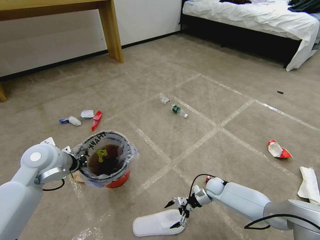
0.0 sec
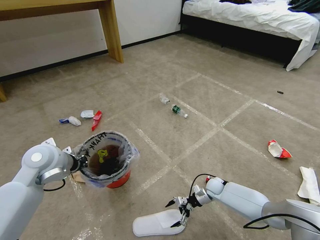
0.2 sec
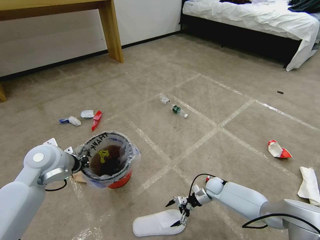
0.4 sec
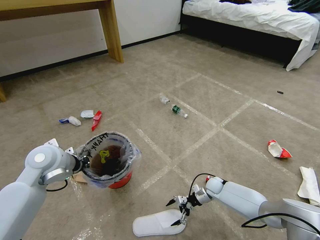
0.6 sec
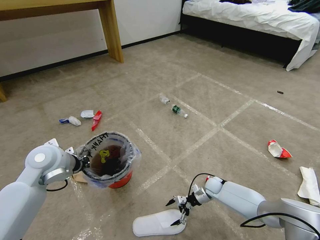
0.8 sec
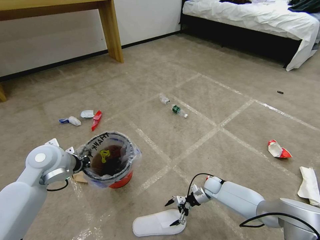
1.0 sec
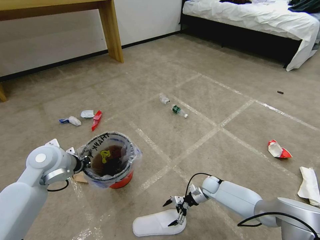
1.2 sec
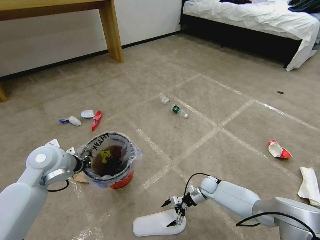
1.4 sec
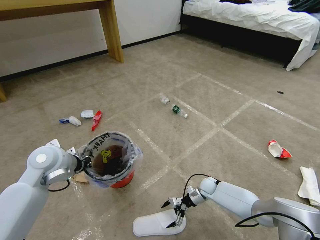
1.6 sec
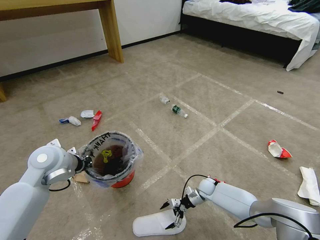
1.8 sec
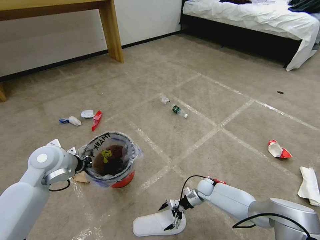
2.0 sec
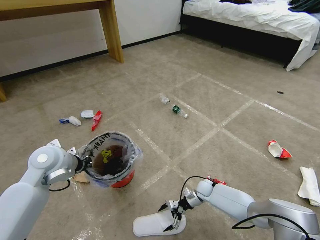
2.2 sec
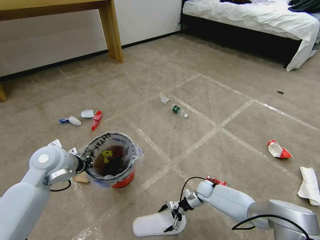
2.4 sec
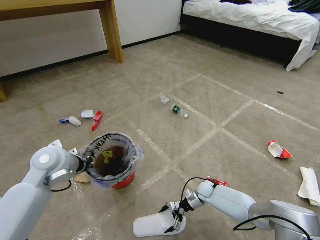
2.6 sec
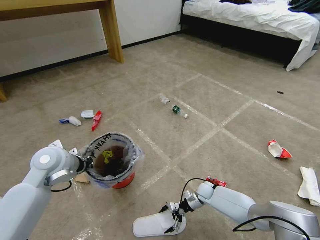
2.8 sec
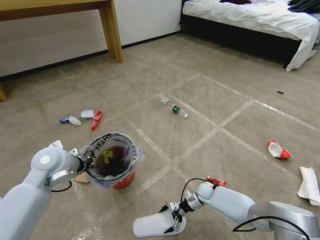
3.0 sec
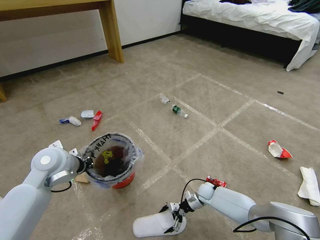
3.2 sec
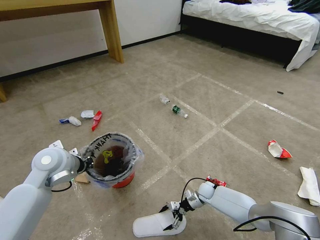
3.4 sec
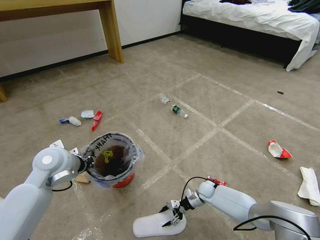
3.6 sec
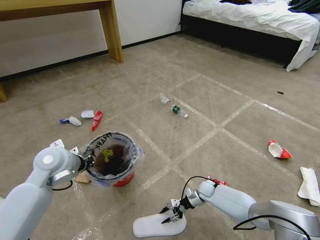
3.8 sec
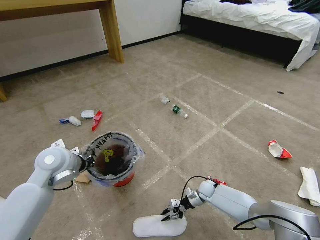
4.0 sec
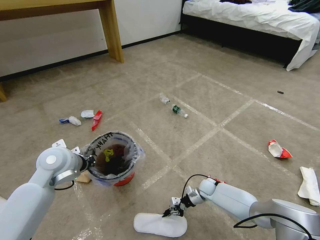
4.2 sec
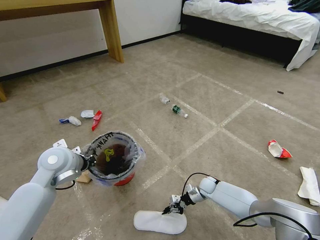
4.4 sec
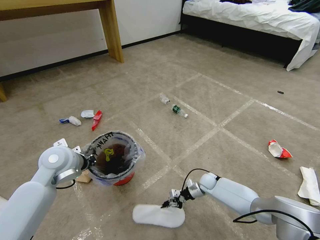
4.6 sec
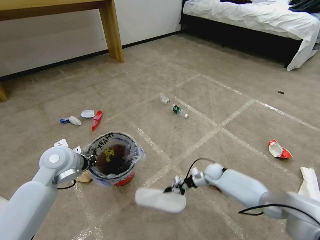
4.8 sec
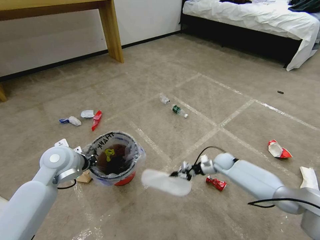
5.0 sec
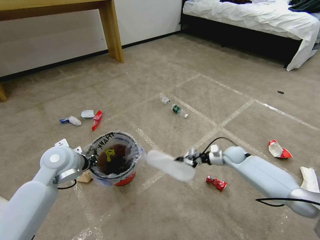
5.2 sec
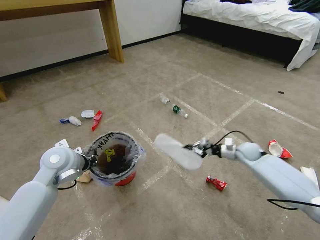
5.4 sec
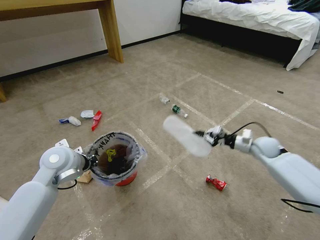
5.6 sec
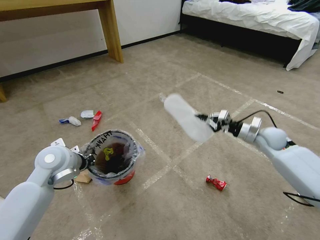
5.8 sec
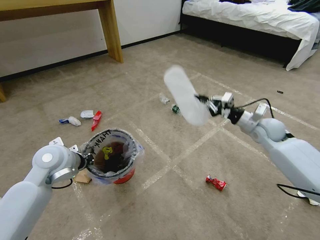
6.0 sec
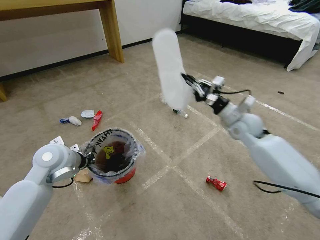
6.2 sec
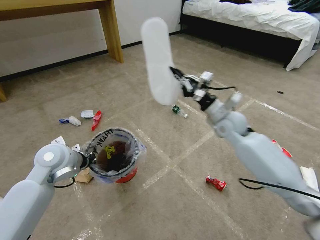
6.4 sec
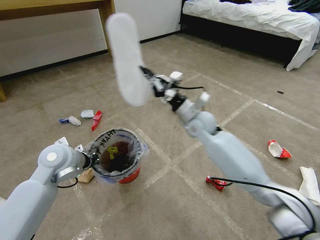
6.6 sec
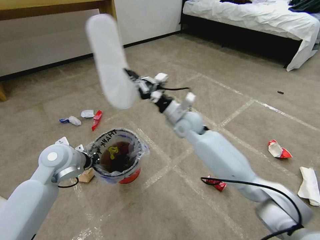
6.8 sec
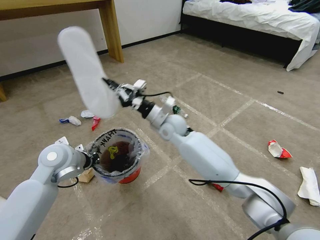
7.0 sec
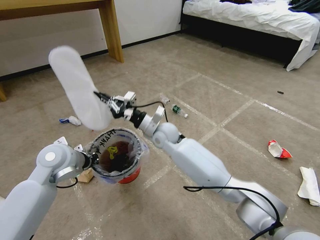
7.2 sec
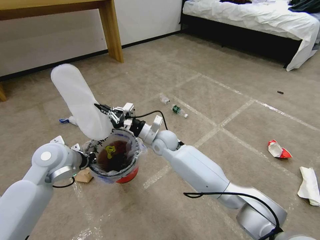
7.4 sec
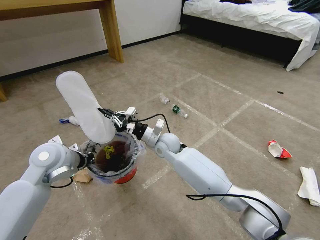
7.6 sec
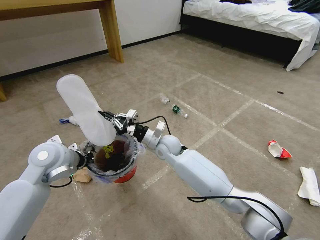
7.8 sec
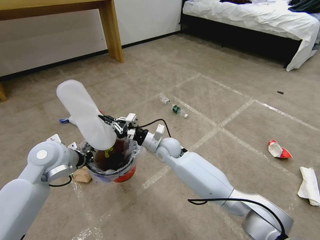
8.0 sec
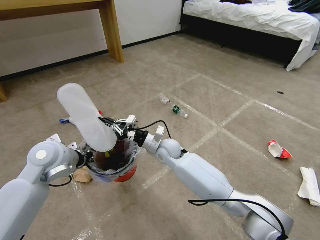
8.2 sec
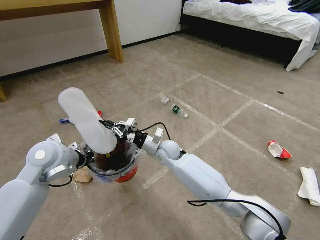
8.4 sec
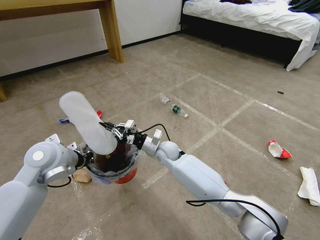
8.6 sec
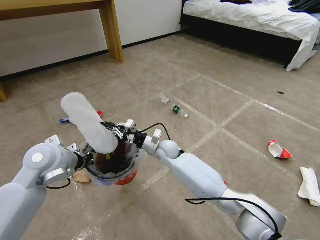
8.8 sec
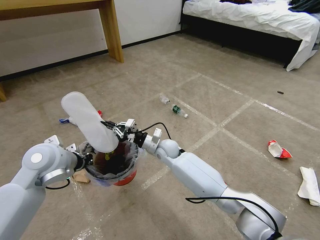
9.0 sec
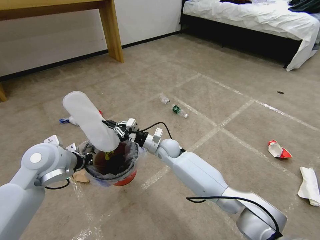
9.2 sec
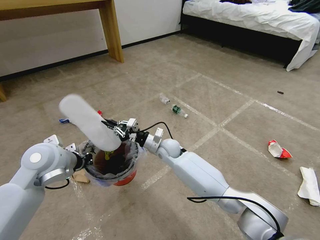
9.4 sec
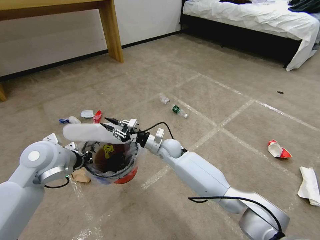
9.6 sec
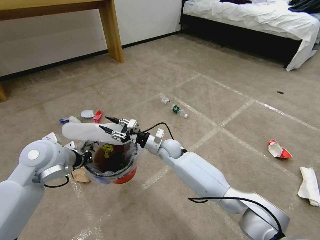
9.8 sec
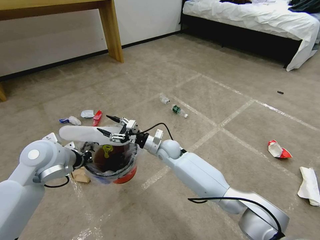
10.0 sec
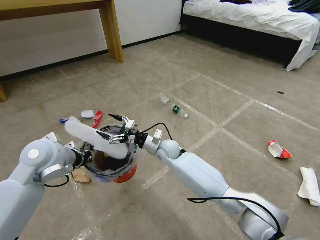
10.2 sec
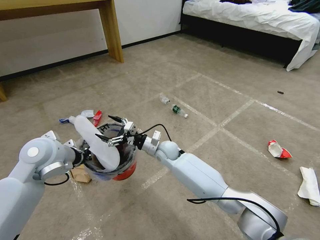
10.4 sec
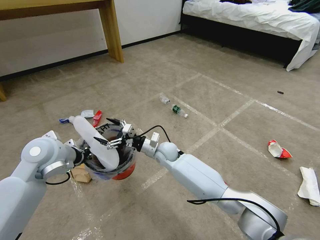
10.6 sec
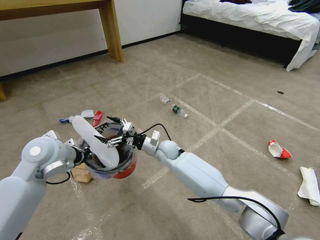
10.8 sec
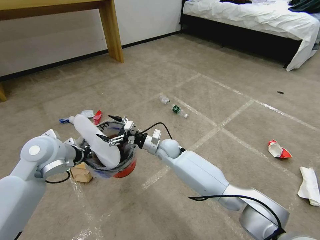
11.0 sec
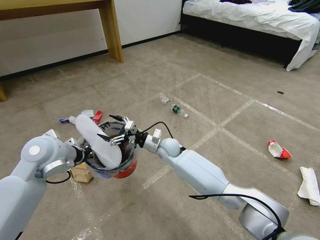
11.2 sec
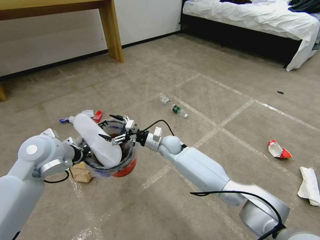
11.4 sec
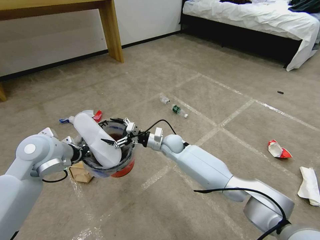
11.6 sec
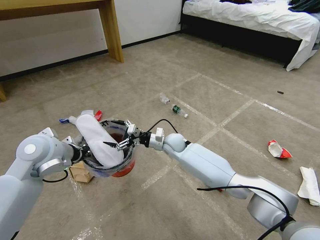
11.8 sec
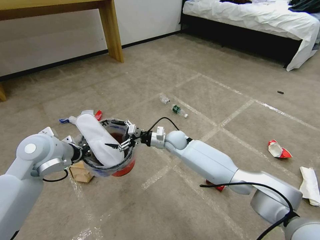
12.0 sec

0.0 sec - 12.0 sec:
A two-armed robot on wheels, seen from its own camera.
Task of the whole recording: Pick up the trash bin and place the garbage on the floor into it.
0.0 sec - 3.0 sec: The grippers stay close to where they were, moving slightly.
3.0 sec - 4.4 sec: The right gripper closes its fingers.
4.4 sec - 6.0 sec: The right gripper shifts some 35 cm upward.
6.0 sec - 7.6 sec: The right gripper goes approximately 35 cm to the left.
7.6 sec - 9.0 sec: The grippers move only a little.
9.0 sec - 10.4 sec: The right gripper opens up.
10.4 sec - 12.0 sec: The right gripper moves roughly 5 cm.

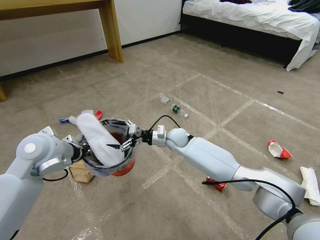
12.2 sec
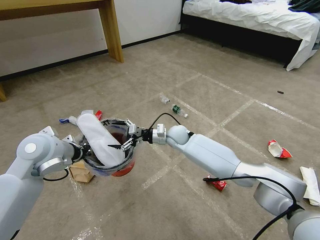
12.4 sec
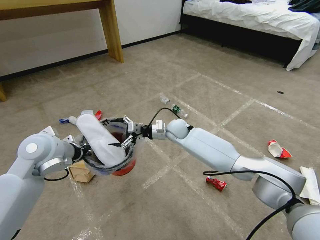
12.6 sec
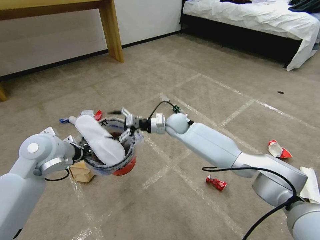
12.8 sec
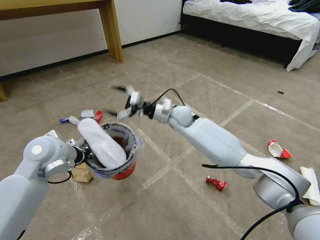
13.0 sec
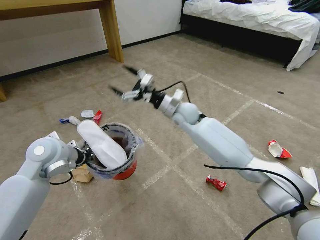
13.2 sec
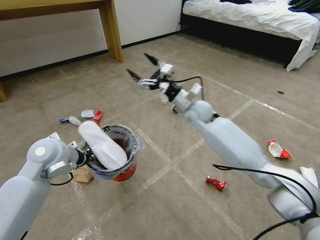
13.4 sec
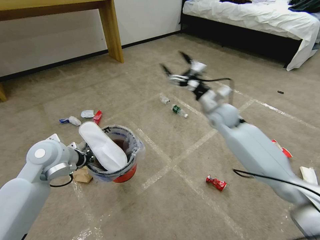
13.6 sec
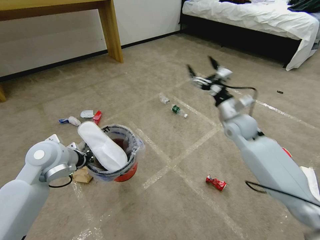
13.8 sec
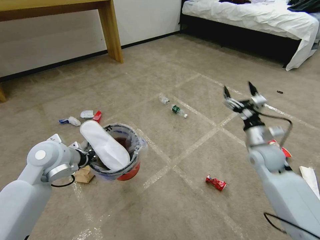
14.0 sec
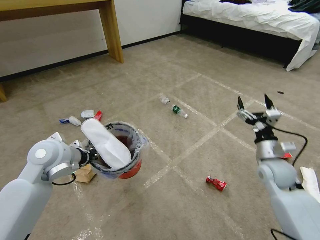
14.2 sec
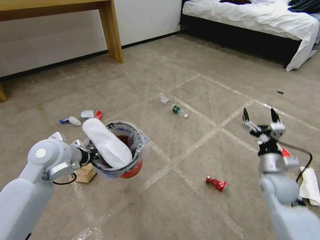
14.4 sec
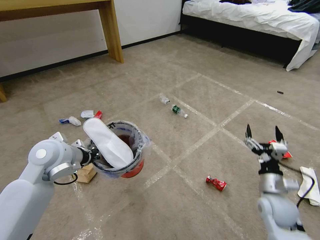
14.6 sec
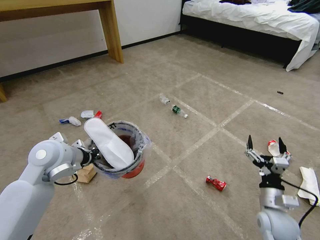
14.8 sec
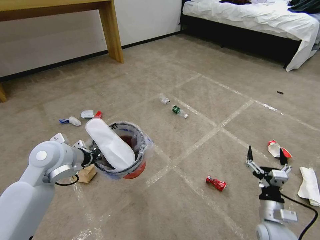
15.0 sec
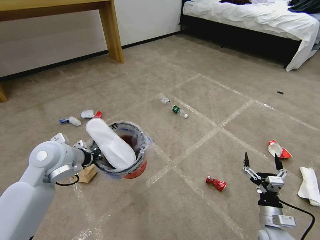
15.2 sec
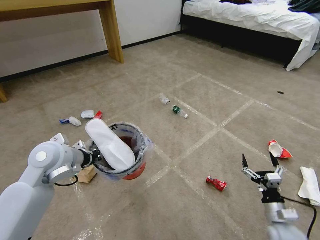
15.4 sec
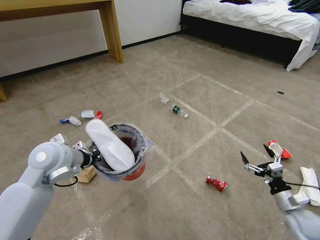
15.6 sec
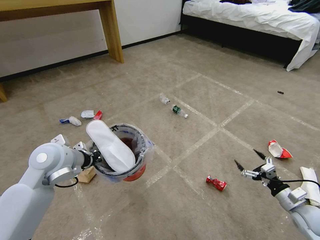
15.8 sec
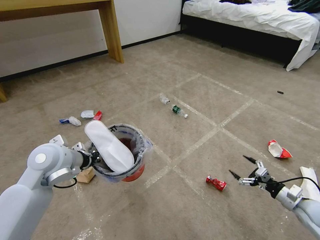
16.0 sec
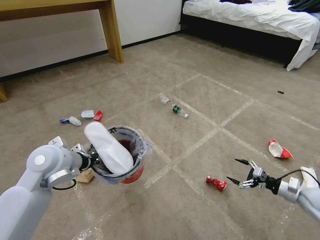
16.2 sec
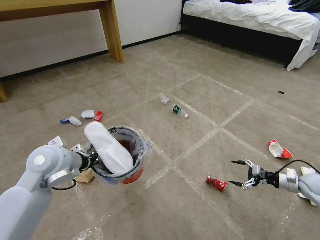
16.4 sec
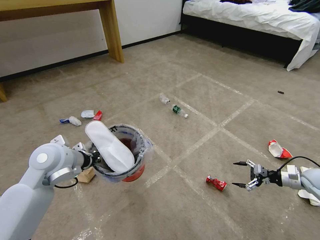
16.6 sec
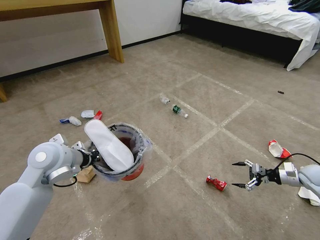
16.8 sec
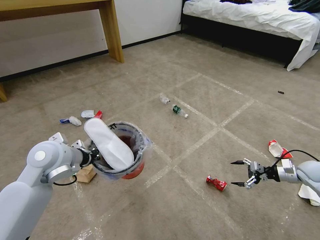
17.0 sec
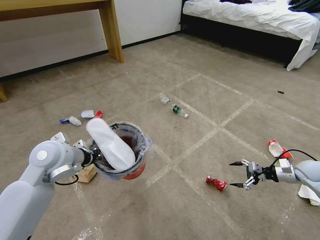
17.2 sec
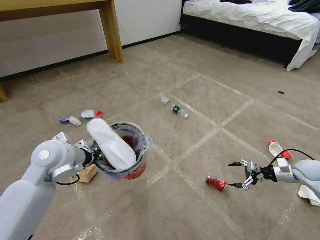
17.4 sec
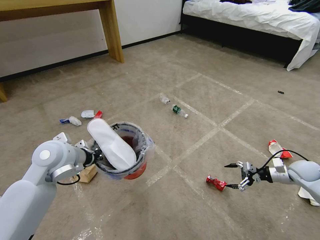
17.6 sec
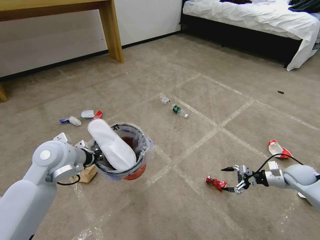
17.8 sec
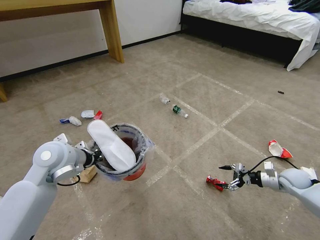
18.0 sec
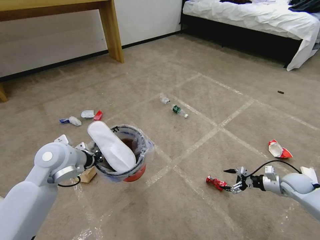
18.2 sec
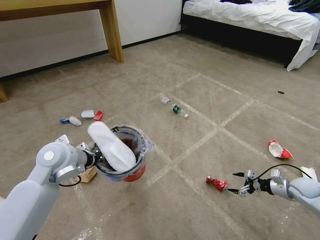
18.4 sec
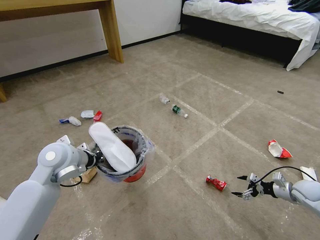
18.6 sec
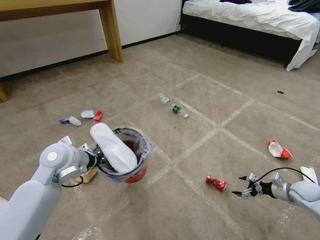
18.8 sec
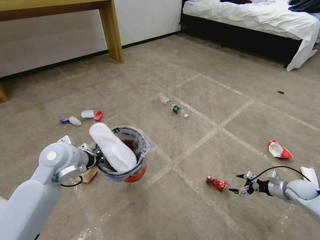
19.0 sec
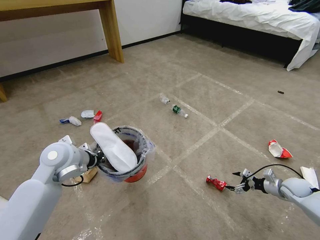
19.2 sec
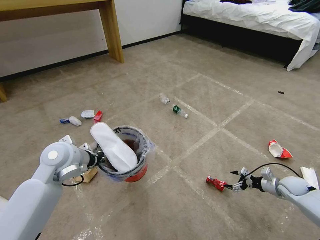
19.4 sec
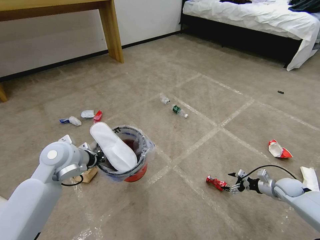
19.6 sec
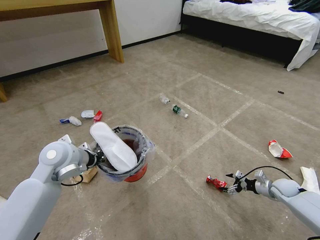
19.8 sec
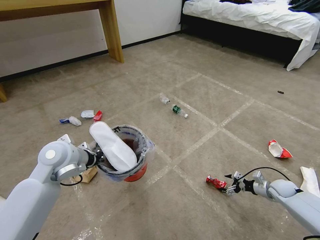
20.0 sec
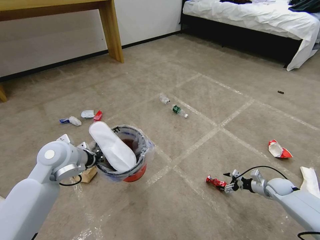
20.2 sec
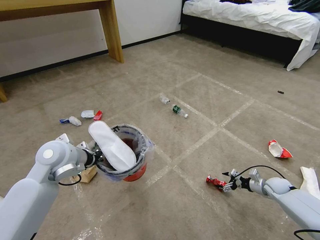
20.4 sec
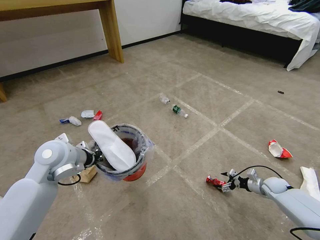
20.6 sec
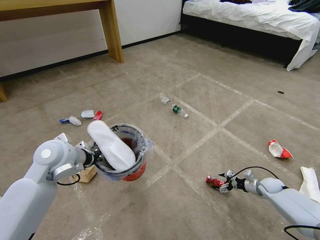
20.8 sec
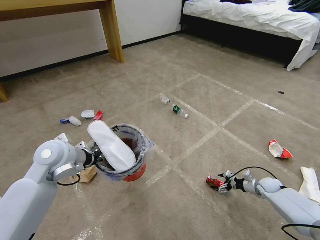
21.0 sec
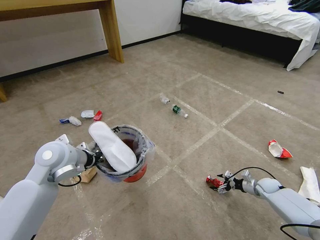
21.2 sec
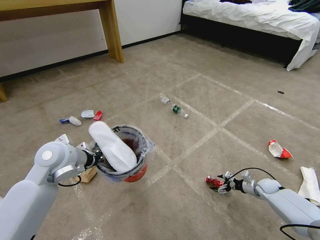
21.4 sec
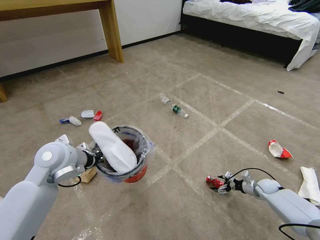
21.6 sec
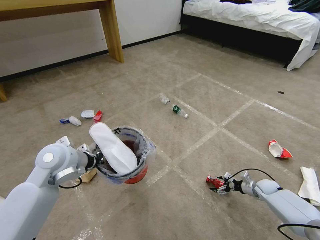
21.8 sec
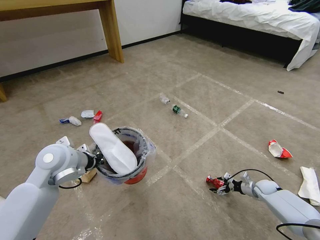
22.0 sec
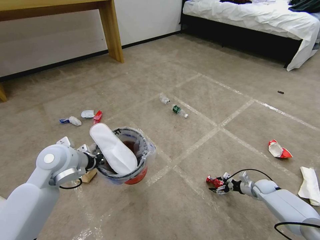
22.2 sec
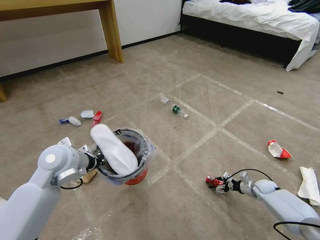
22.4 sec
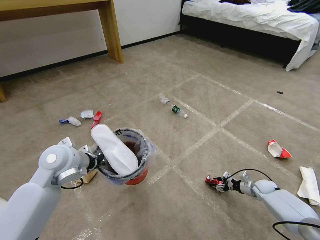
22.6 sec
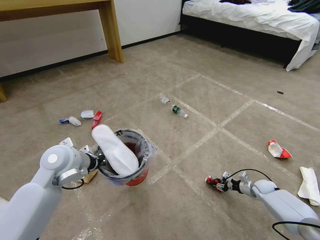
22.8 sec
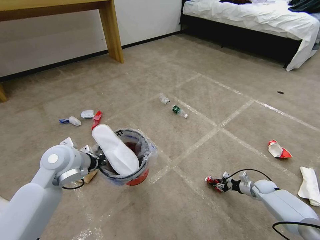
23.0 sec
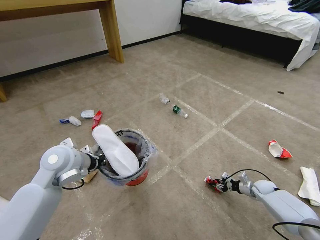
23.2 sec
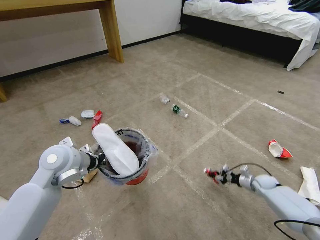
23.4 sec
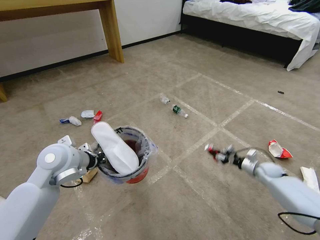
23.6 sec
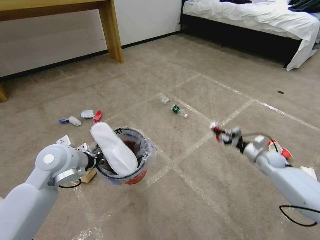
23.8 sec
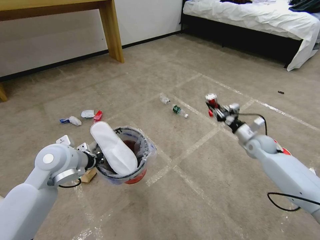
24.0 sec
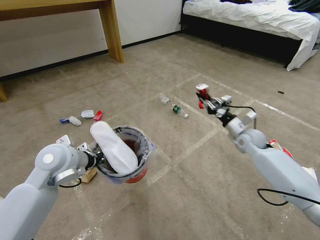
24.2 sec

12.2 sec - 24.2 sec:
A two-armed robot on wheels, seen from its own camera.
Task of the whole recording: Pick up the trash bin and place the garbage on the floor into it.
12.2 sec - 13.8 sec: The right gripper travels to the right and upward by approximately 25 cm.
13.8 sec - 15.2 sec: The right gripper shifts some 35 cm backward and downward.
15.2 sec - 16.6 sec: The right gripper shifts roughly 30 cm to the right and forward.
16.6 sec - 18.2 sec: The right gripper goes roughly 5 cm to the left.
18.2 sec - 19.8 sec: The right gripper is displaced downward by roughly 5 cm.
19.8 sec - 21.2 sec: The right gripper is displaced downward by some 5 cm.
21.2 sec - 22.6 sec: The right gripper closes up.
22.6 sec - 24.2 sec: The right gripper is displaced upward and to the left by some 30 cm.
